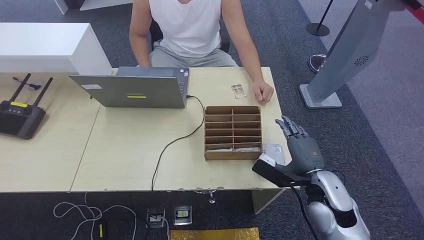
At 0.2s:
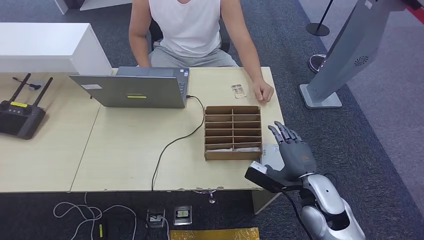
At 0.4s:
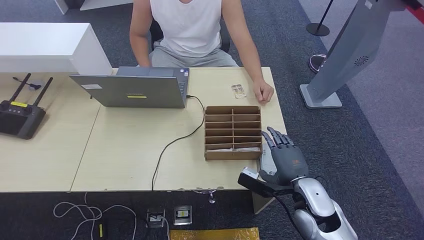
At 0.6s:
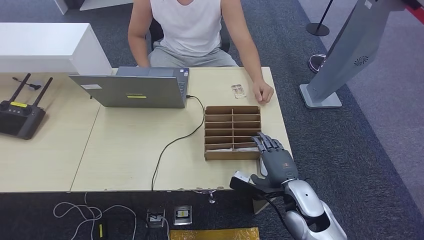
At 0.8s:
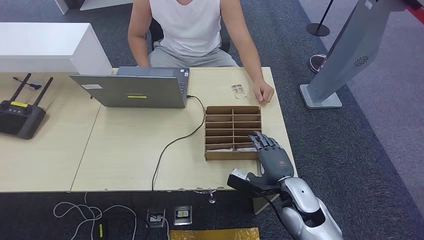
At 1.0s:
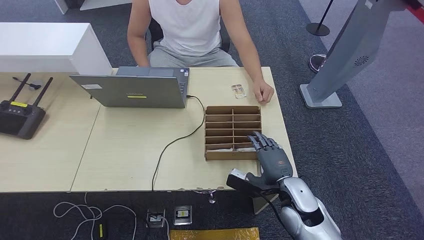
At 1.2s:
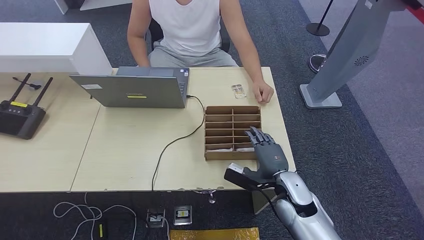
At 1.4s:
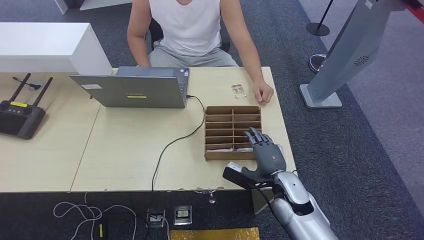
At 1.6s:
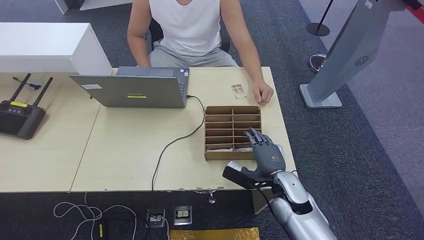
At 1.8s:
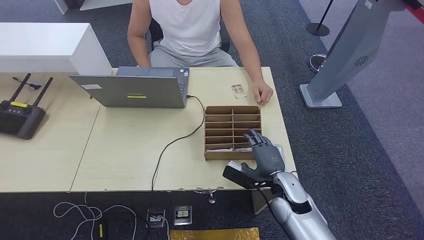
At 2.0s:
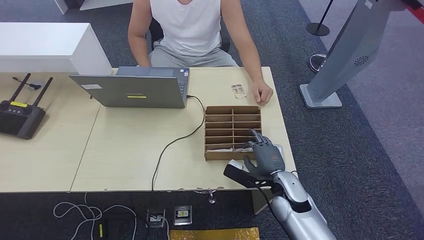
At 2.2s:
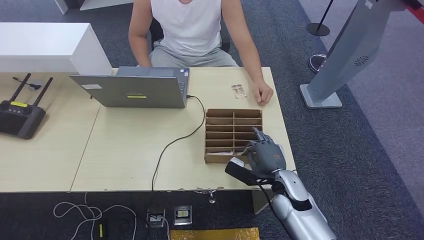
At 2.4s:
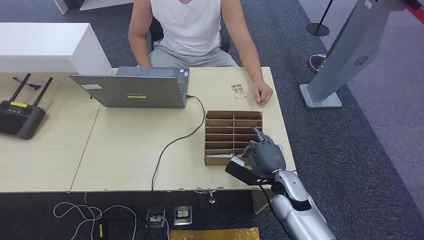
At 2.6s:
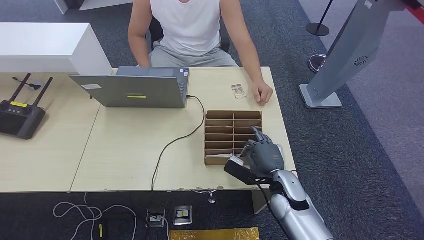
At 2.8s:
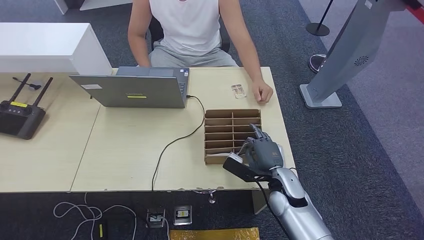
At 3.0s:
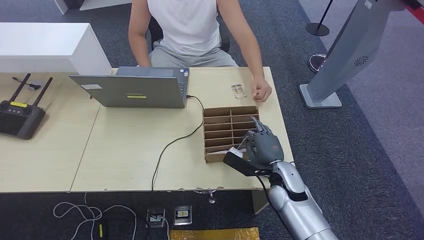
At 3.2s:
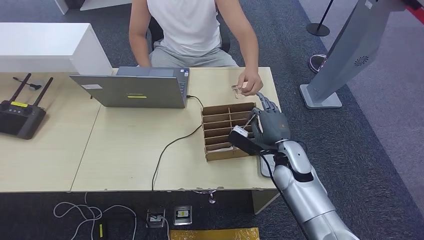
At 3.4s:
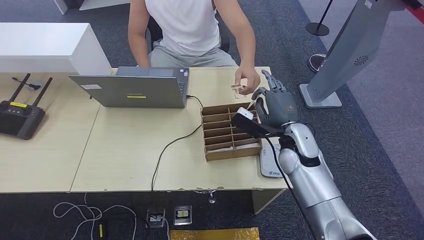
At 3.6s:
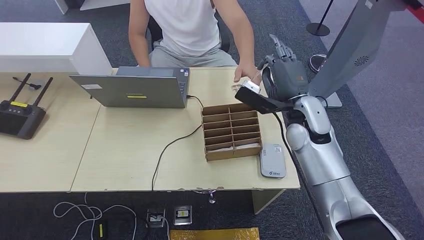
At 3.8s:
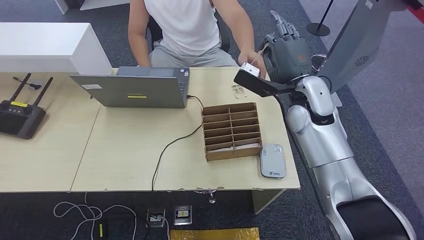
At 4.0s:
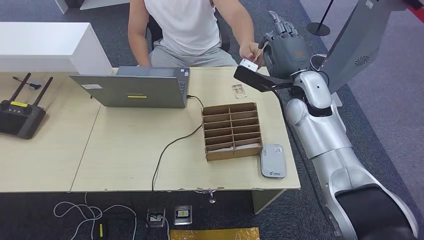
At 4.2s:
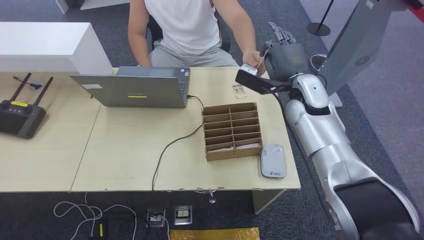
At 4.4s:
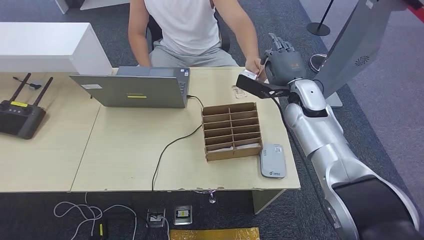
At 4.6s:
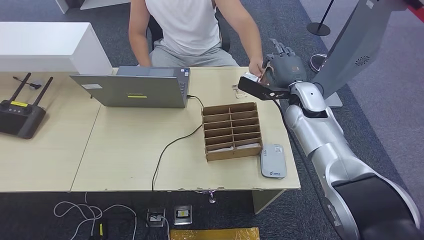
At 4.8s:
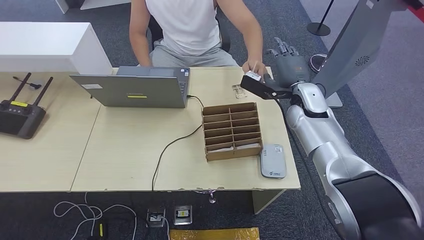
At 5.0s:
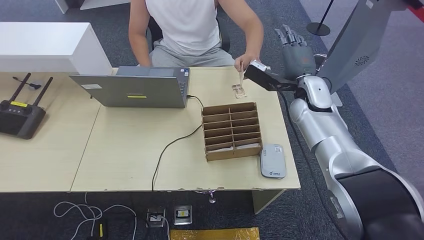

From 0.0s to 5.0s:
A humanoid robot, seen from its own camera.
Step, from 0.0s to 2.4s: Pick up the room key from the key card box.
Step, from 2.8s to 5.0s: Hand the room key to the person.
From 0.0s to 1.6s: The right hand goes roughly 10 cm downward and to the left.
From 1.6s to 3.4s: The right hand travels upward and forward by about 15 cm.
From 3.4s to 5.0s: The right hand goes about 15 cm forward and upward.
